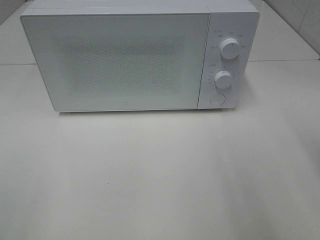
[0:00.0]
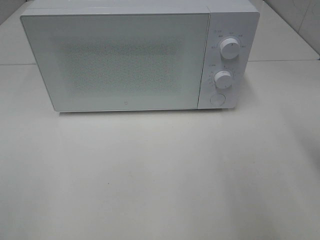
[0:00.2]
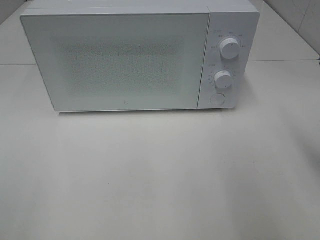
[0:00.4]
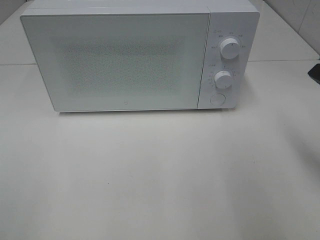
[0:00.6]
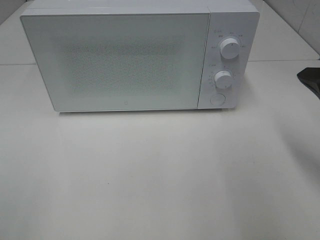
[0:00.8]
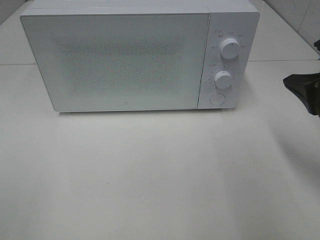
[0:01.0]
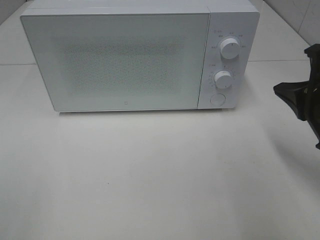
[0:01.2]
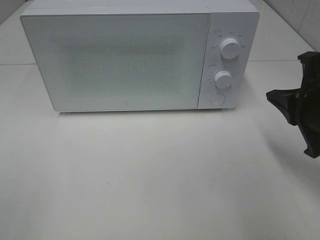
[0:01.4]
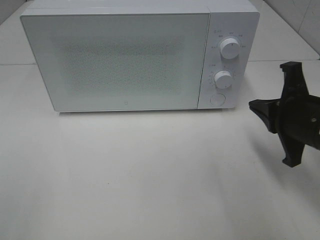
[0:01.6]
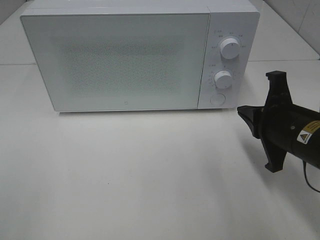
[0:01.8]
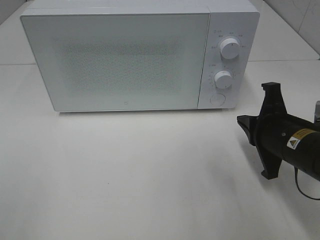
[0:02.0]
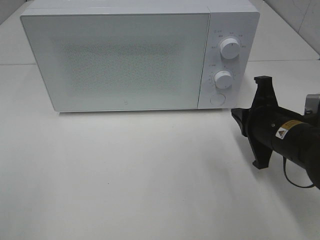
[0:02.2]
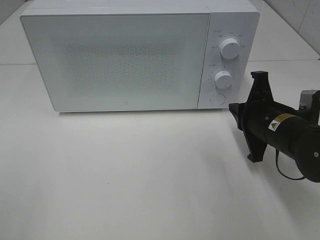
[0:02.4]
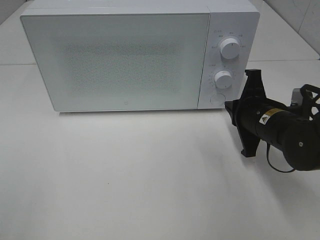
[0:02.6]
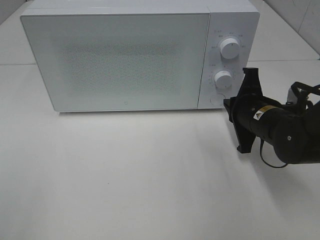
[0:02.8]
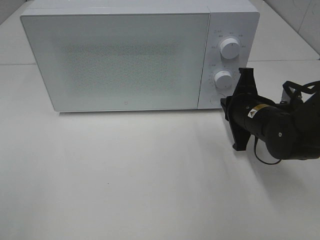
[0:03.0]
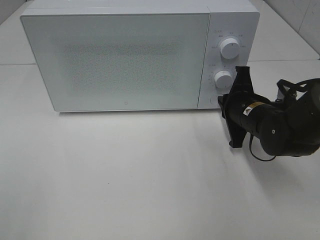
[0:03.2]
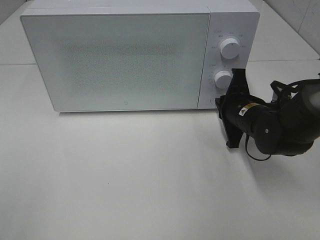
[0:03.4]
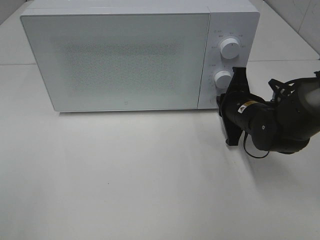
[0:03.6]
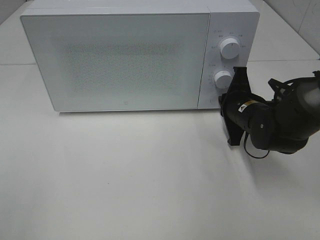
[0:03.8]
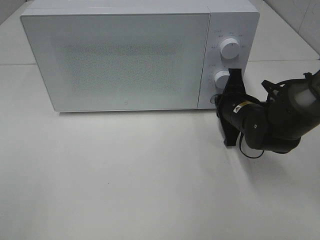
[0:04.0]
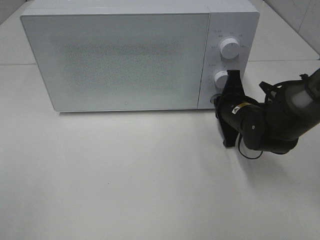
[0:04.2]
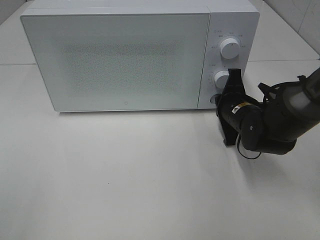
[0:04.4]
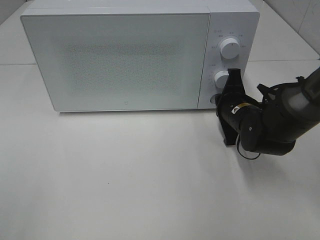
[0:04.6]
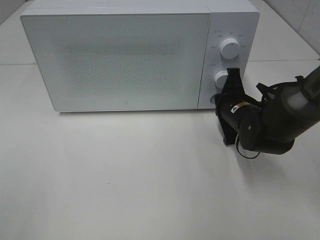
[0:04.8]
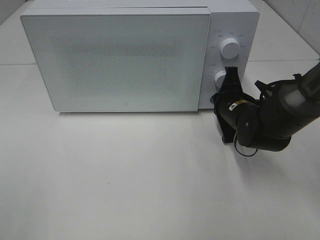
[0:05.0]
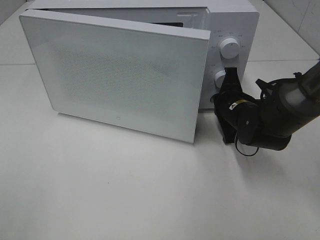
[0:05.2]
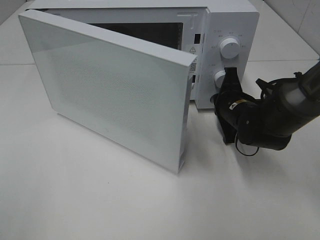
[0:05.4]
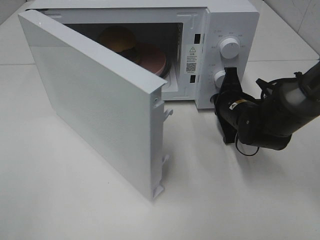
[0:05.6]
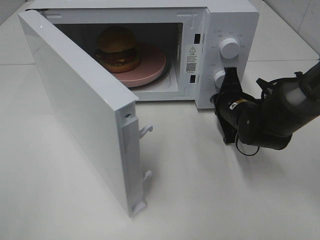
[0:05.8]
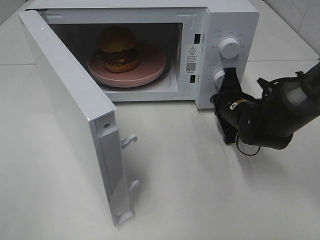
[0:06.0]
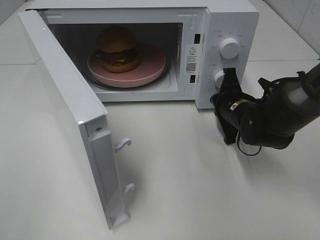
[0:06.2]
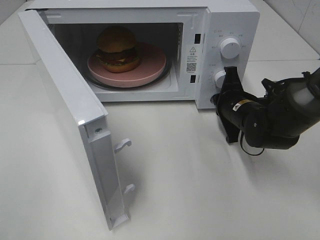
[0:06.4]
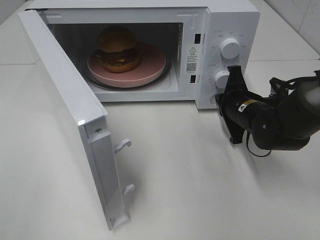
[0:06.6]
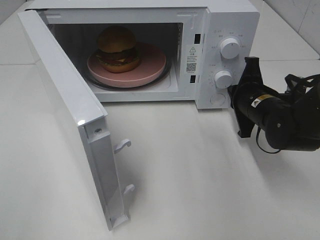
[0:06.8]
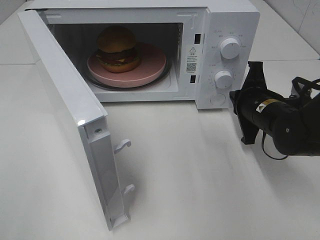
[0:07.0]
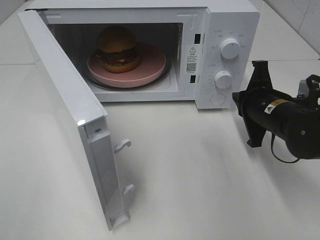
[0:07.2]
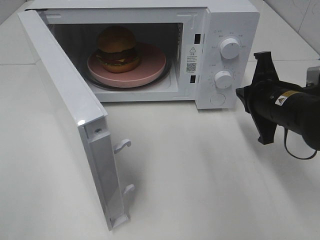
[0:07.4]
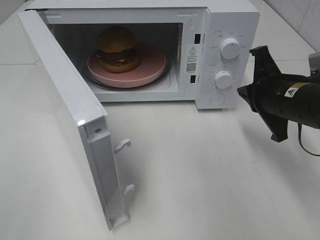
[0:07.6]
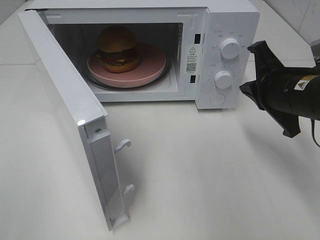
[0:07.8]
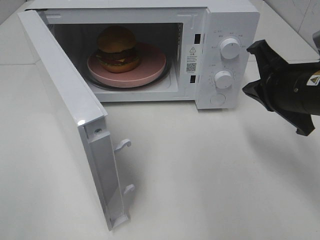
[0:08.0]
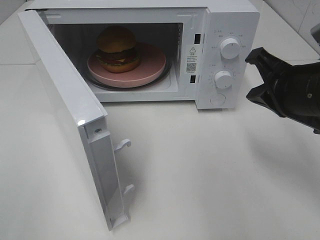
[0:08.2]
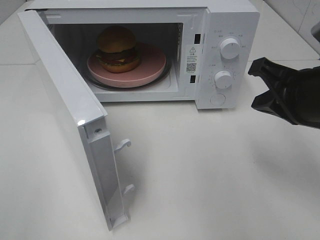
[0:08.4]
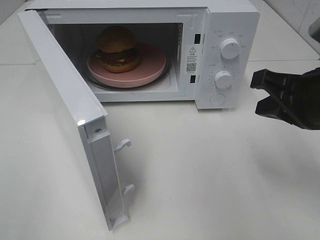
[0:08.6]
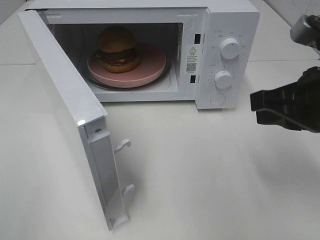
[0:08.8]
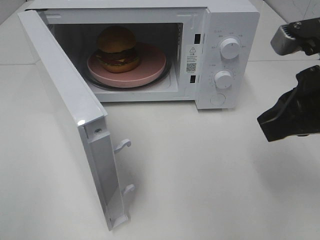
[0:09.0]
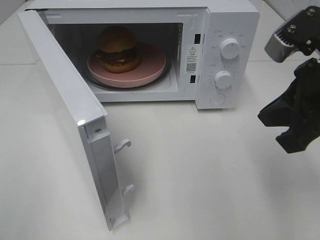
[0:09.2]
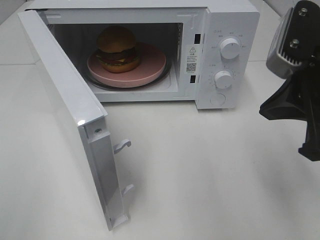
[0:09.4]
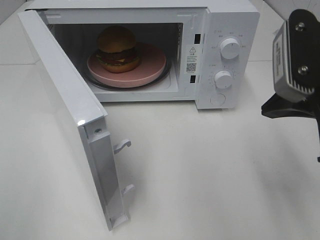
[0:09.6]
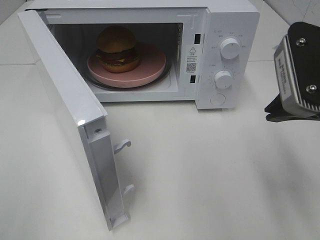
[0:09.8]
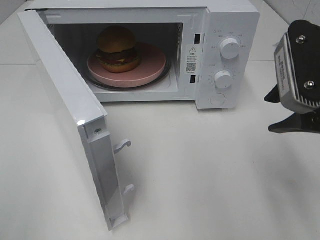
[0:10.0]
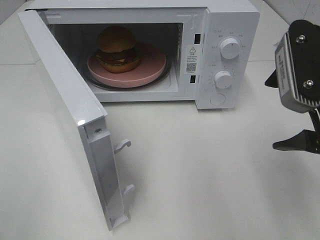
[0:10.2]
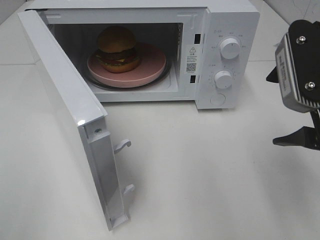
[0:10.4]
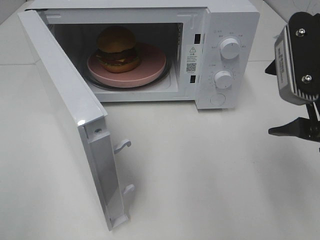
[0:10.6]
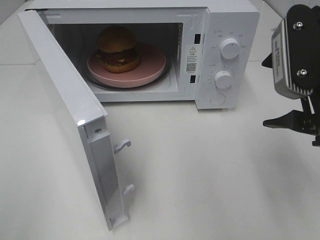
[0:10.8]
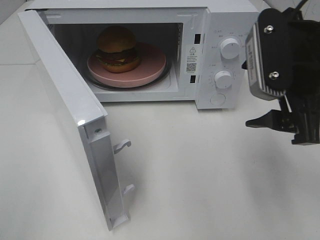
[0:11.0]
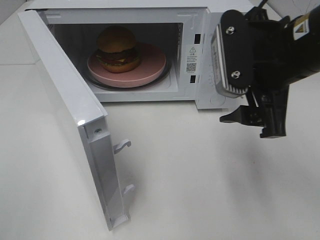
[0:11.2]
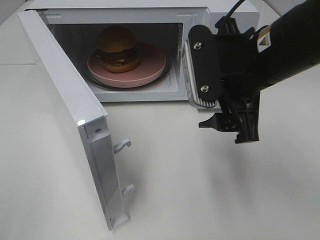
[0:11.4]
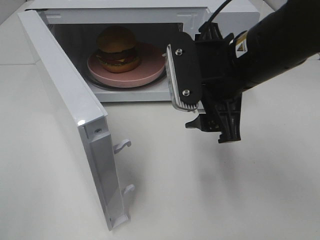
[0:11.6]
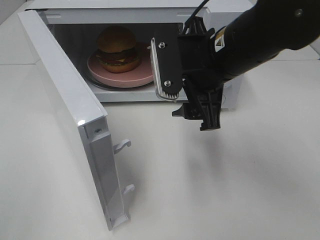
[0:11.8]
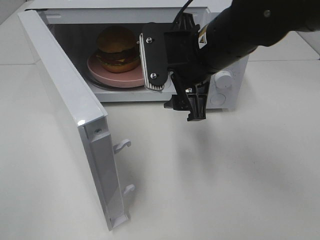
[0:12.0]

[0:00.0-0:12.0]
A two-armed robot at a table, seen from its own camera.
Task of the whole recording: Heat the burger.
Step, 0:00.0 to 0:06.6: Right hand: press the switch.
0:00.0 to 0:01.6: The right gripper is displaced downward, forward and to the left by approximately 15 cm.
0:01.6 to 0:03.0: The right gripper shifts about 10 cm forward and downward.
0:03.0 to 0:04.4: The grippers move only a little.
0:06.0 to 0:07.6: The right gripper shifts roughly 15 cm upward and backward.
0:07.6 to 0:09.0: The right gripper travels upward and backward by some 10 cm.
0:09.0 to 0:10.4: The right gripper opens up.
0:10.4 to 0:12.0: The right gripper moves to the left and forward, approximately 15 cm.

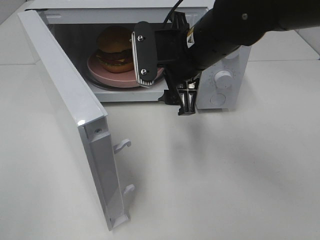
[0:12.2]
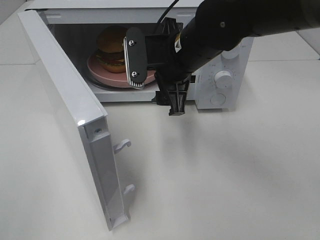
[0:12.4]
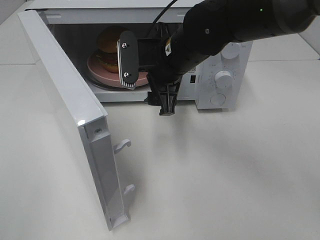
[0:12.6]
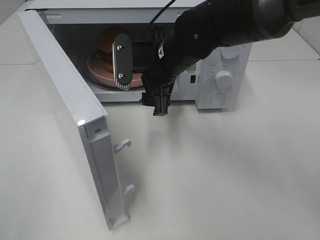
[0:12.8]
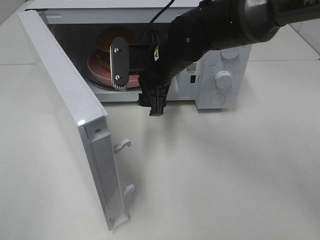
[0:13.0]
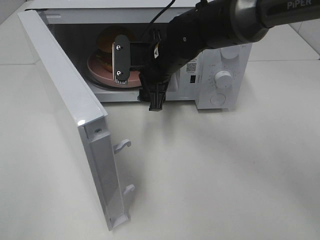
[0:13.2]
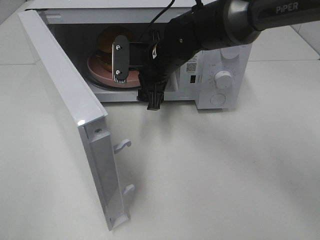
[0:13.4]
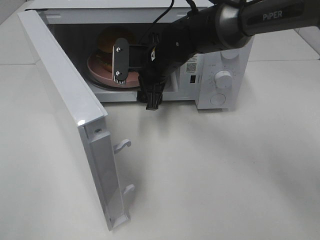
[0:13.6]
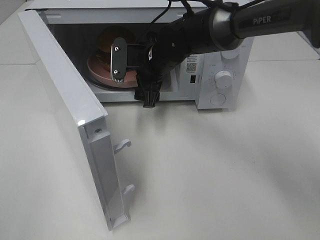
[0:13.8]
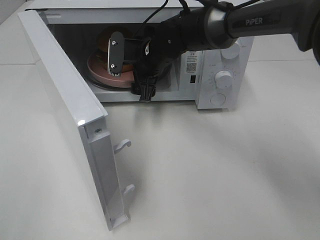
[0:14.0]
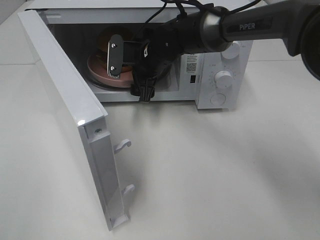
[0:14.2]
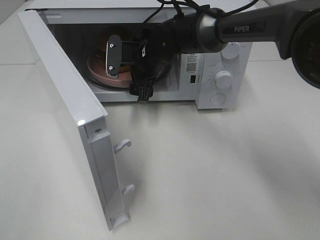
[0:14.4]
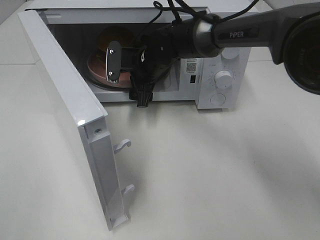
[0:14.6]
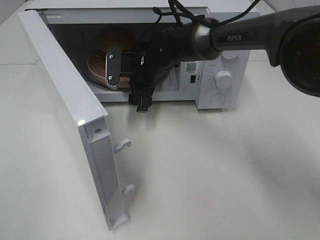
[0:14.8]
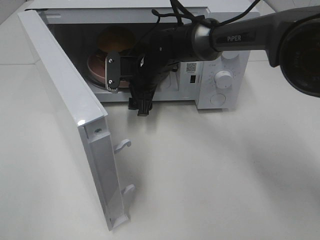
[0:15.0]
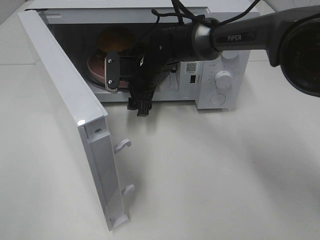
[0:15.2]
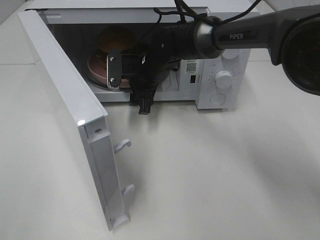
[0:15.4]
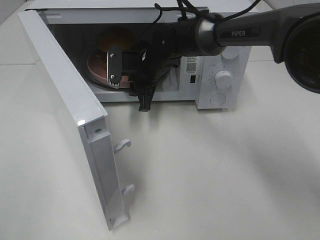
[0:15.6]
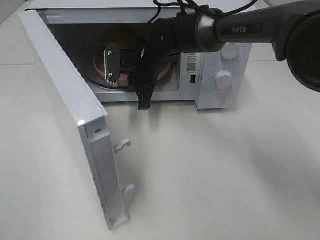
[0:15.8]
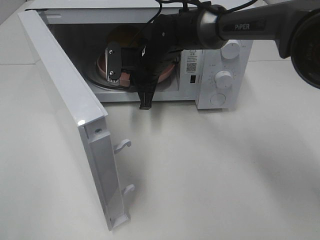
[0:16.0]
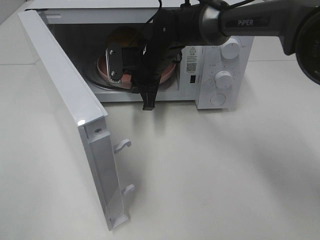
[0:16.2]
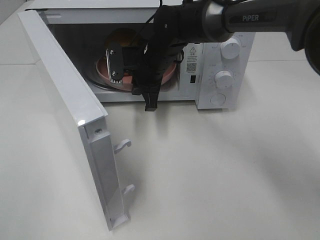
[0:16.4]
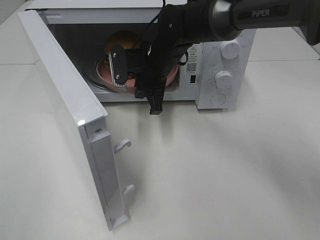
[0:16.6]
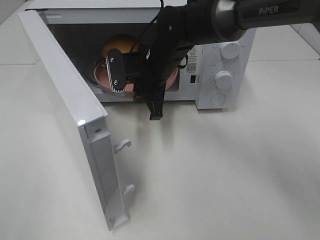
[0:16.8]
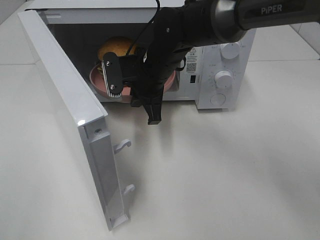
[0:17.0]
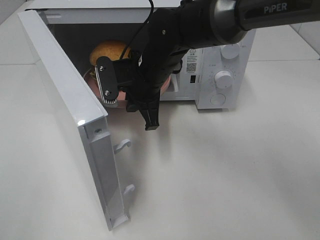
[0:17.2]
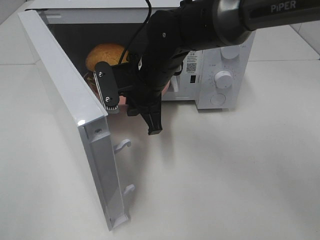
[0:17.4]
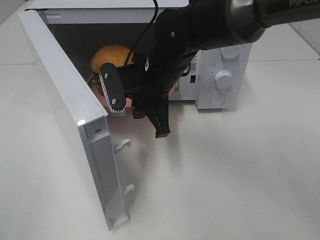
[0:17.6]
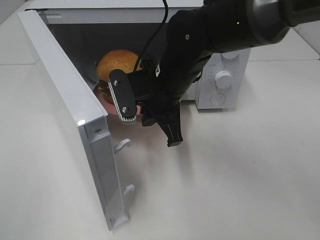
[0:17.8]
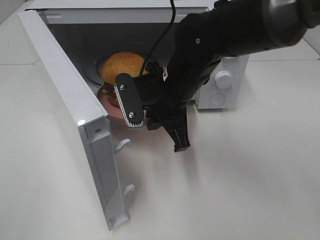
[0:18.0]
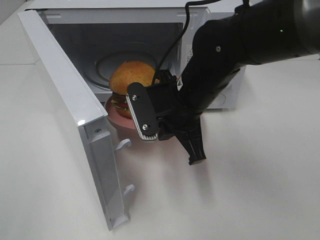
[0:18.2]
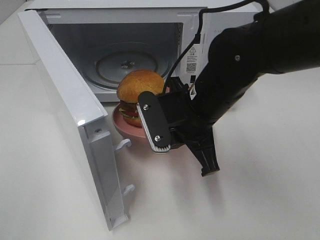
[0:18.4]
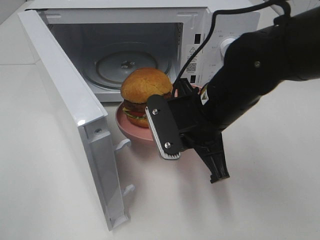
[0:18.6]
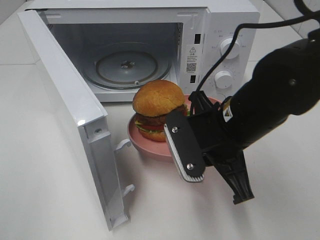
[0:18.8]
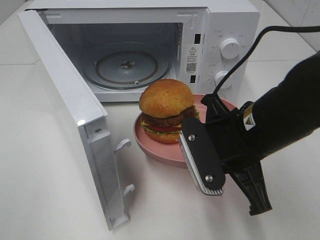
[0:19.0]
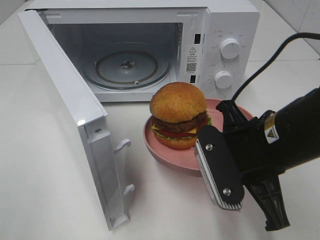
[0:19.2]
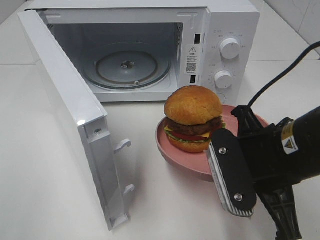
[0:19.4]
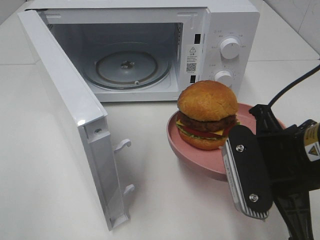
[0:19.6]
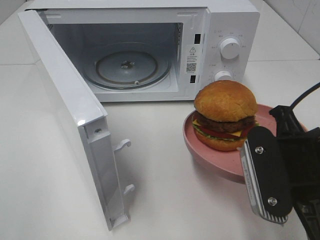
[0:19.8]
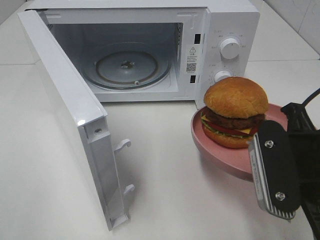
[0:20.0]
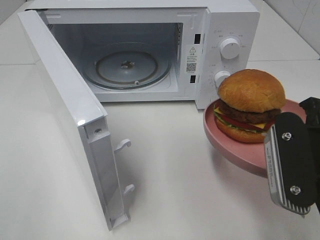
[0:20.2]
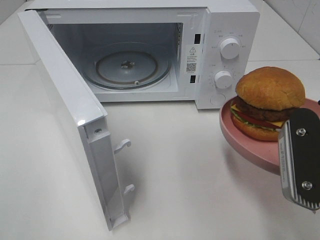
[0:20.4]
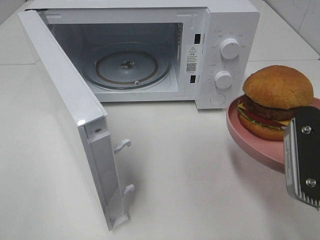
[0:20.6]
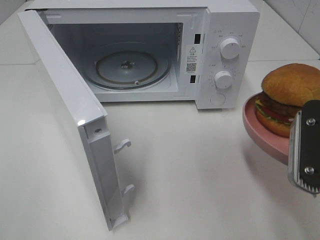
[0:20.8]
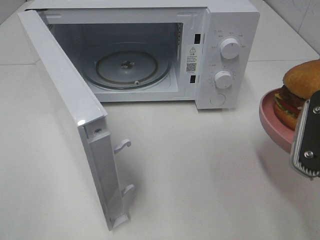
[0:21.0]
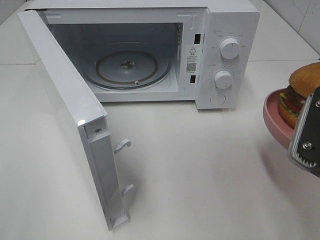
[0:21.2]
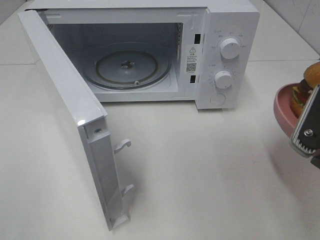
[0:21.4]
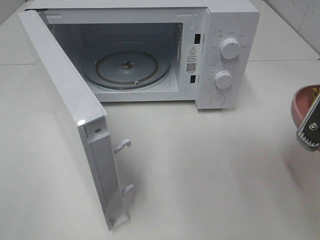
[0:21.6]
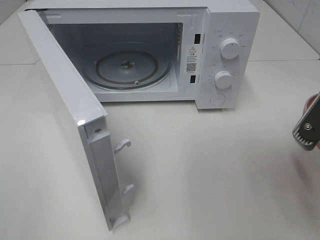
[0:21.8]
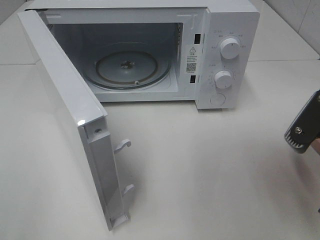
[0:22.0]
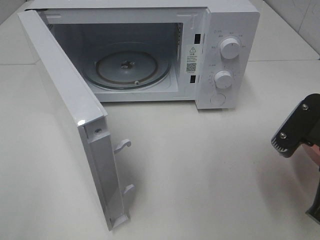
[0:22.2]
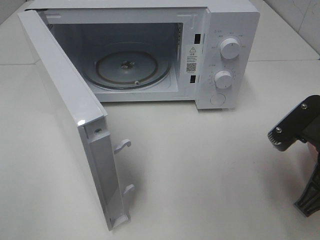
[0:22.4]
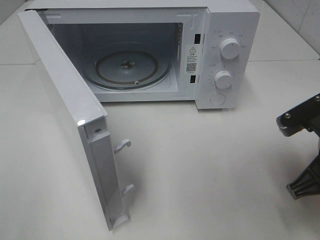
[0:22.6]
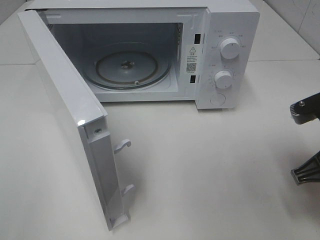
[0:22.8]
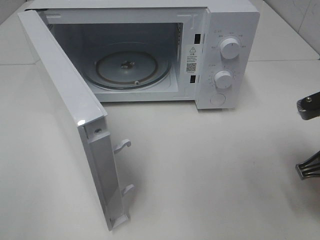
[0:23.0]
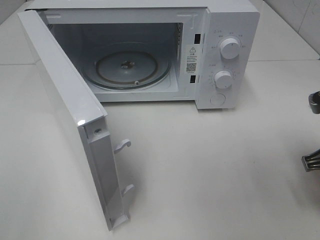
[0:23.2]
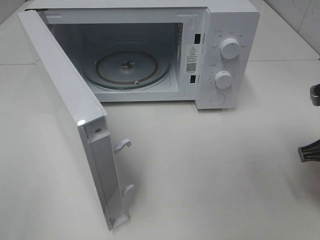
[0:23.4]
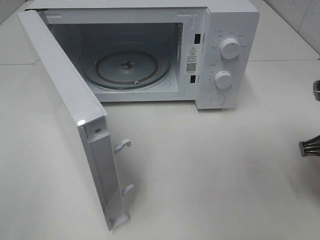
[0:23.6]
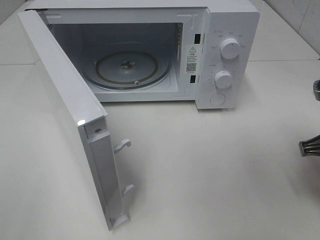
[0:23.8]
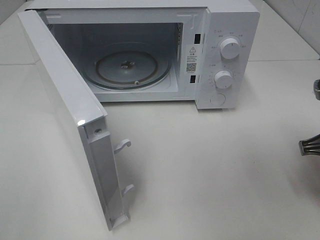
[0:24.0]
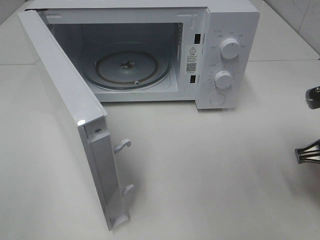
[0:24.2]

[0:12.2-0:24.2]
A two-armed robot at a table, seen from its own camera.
Task of the whole recording: Heat the burger.
Step, 0:12.2 to 0:15.6: Right hand: grab the plate with the hamburger.
0:12.2 to 0:13.8: The right gripper travels forward and downward by approximately 15 cm.
0:13.8 to 0:15.2: There are only small adjustments of the grippers.
0:15.2 to 0:16.6: The right gripper closes its fingers.
0:16.6 to 0:18.2: The right gripper travels backward by some 15 cm.
0:18.2 to 0:19.8: The right gripper heads backward and to the right, covering roughly 20 cm.
0:19.8 to 0:21.2: The right gripper moves some 5 cm.
0:21.2 to 0:22.6: The right gripper shifts roughly 5 cm downward.
